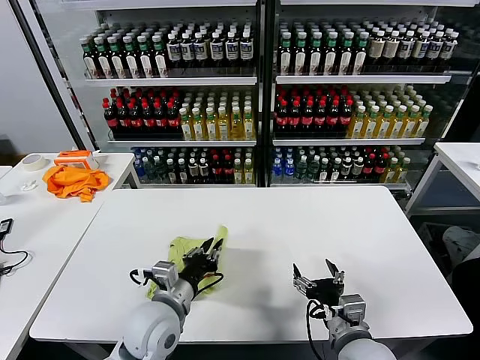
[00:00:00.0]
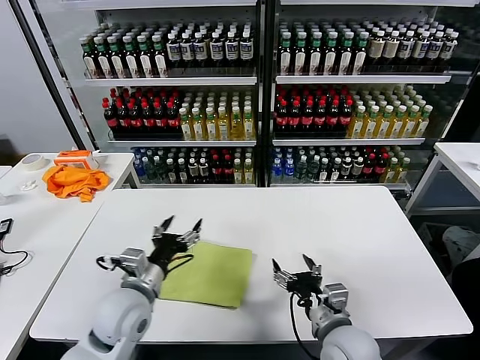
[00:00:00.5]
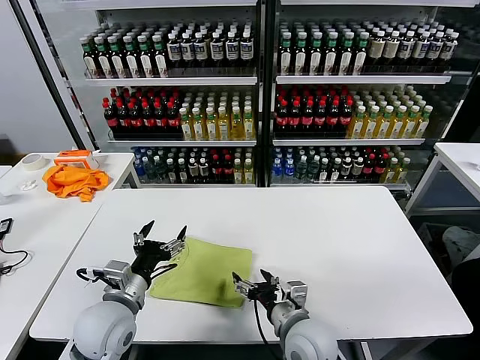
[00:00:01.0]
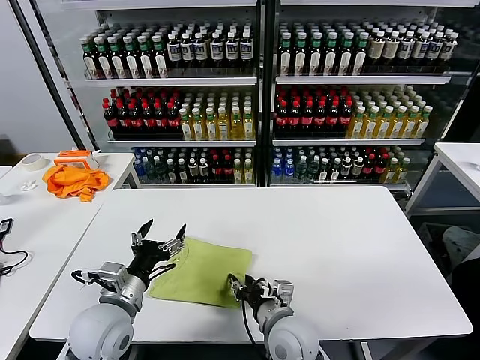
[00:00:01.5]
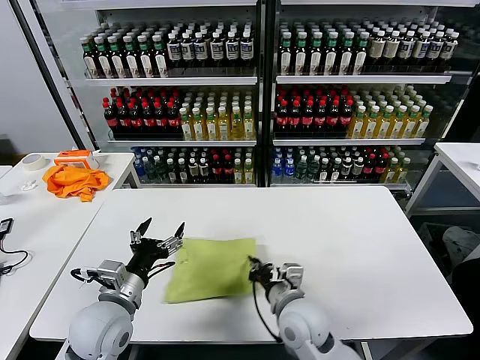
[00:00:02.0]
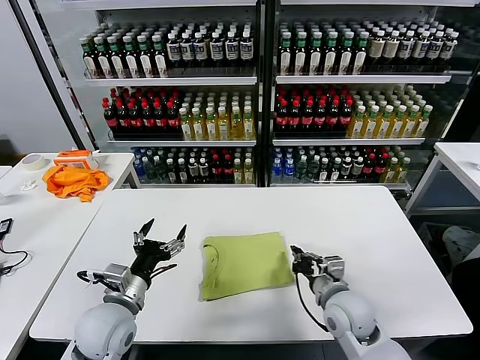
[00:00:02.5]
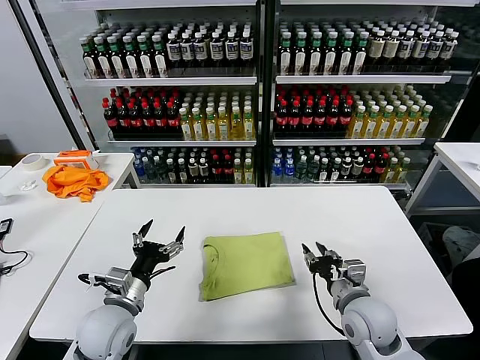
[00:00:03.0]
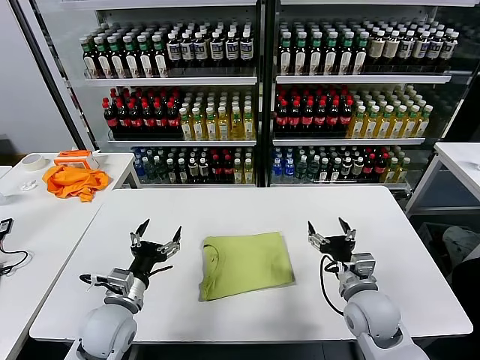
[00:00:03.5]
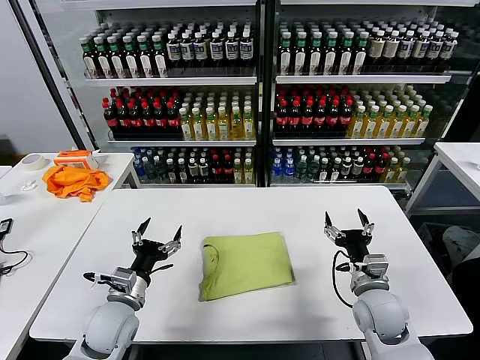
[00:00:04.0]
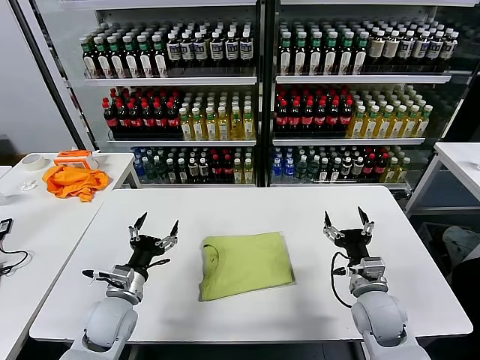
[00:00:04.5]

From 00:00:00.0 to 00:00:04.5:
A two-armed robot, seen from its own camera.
Task of the whole recording: fold and organize the clothes.
Step, from 00:00:00.5 to 00:00:02.5: Drag the clothes to the center of the table.
From 00:00:00.0 to 00:00:02.0: The right gripper shifts roughly 15 cm to the left and forward, and closes its fingers. The left gripper goes about 10 cm to the left, and opens.
From 00:00:02.0 to 00:00:04.5: The left gripper is displaced downward by roughly 10 cm. Meanwhile the right gripper heads to the right, covering about 15 cm, and opens up.
